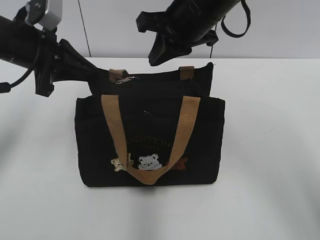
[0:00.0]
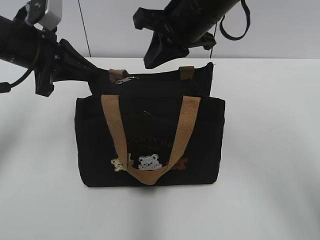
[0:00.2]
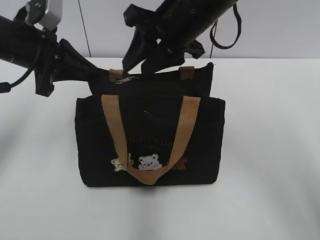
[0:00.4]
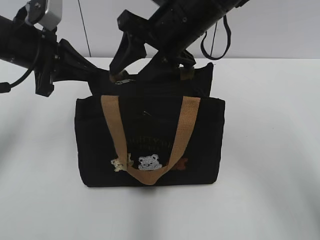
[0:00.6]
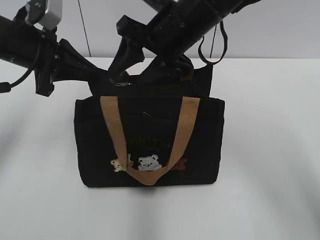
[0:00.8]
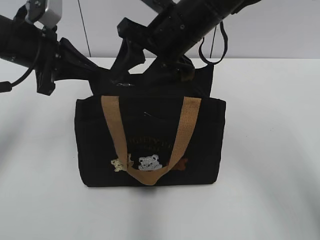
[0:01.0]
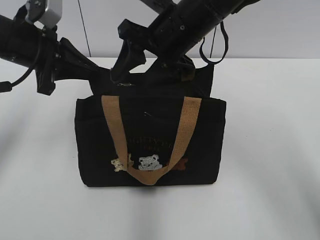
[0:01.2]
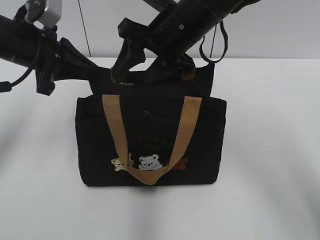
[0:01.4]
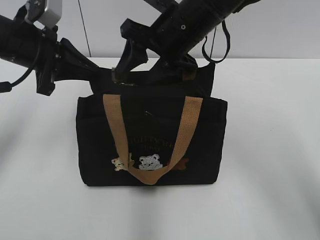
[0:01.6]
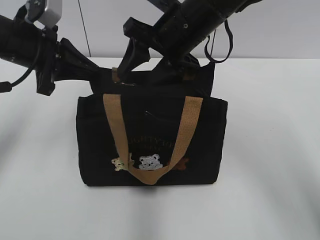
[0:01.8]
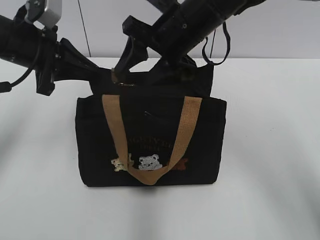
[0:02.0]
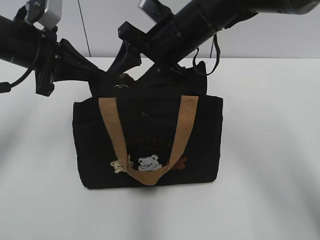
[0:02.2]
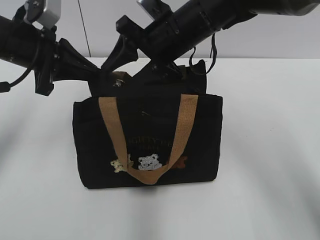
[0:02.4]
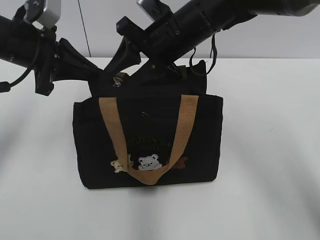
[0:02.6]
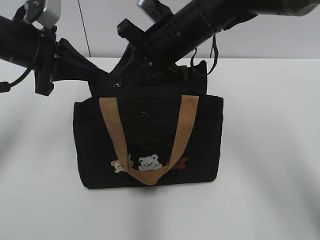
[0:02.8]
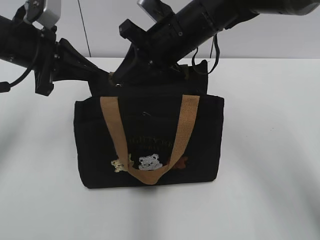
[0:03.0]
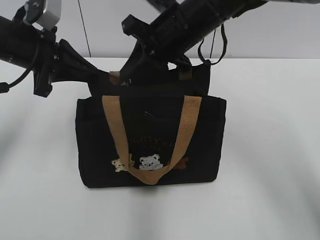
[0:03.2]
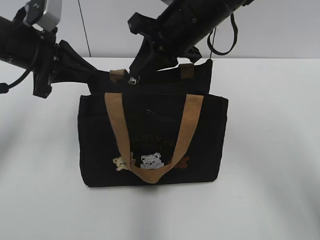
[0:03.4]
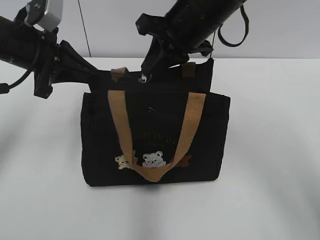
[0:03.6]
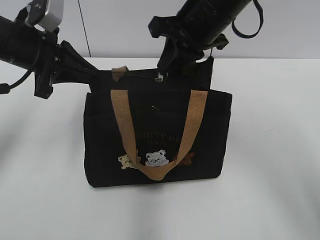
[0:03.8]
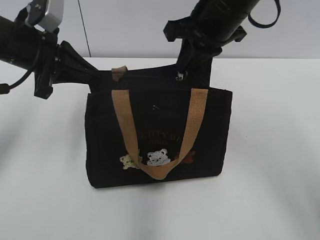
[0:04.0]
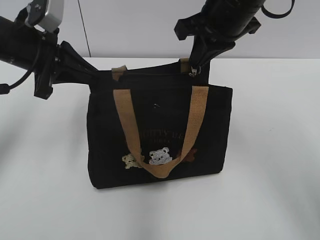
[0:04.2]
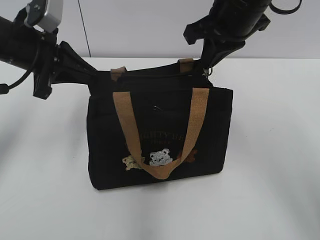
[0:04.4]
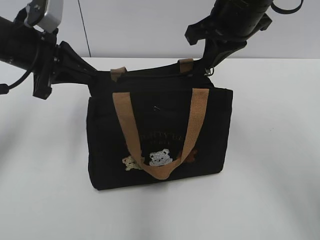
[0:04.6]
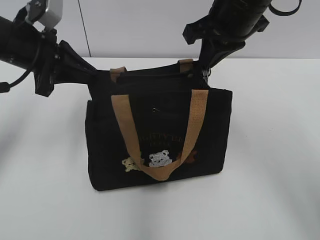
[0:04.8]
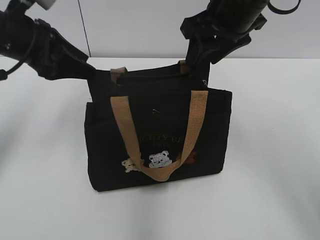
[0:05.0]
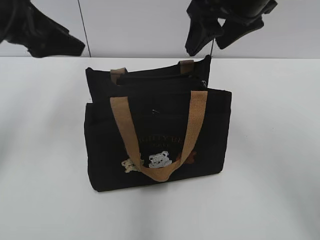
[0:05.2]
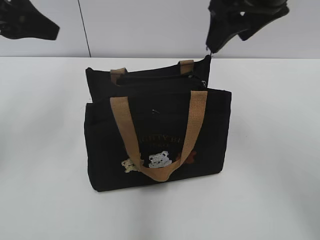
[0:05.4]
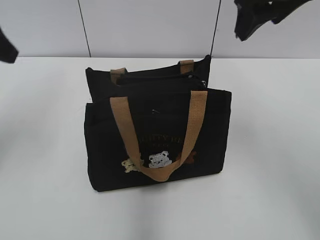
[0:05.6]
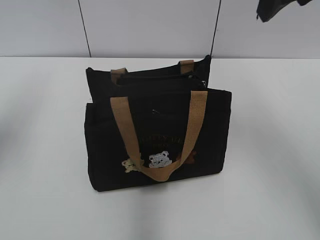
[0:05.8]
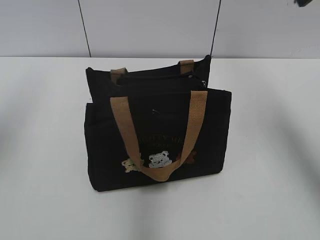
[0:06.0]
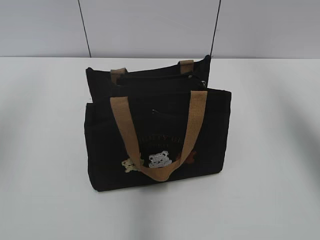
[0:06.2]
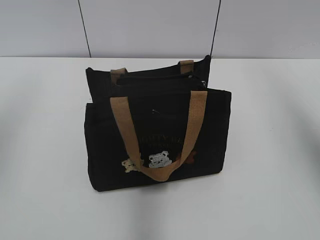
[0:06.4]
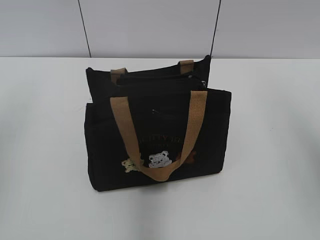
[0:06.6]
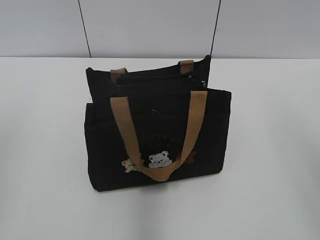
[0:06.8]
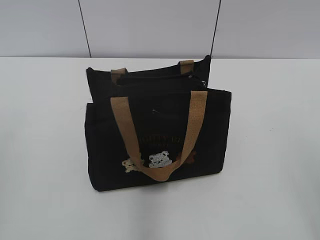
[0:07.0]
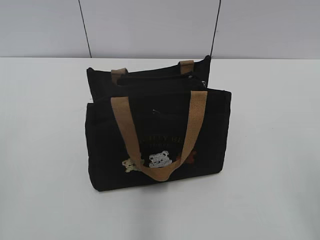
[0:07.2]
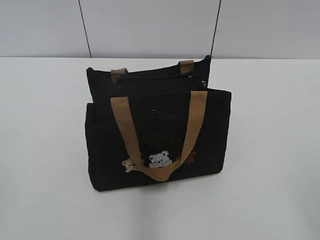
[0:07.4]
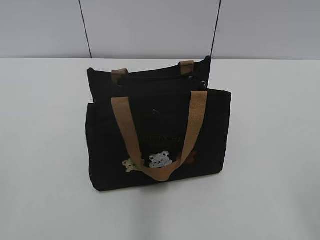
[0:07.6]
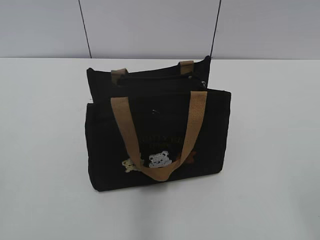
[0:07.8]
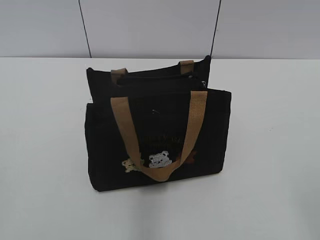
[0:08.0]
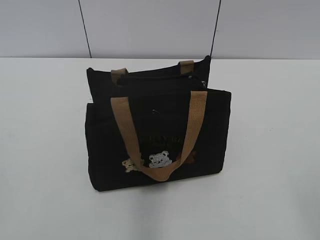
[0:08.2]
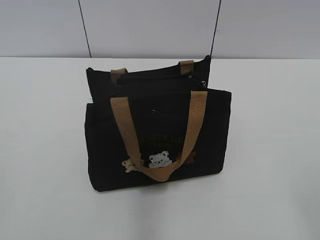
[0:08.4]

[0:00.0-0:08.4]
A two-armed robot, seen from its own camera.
Step, 0:00.0 to 0:04.8: Pull open the zipper with your right hand.
0:00.0 to 0:01.4: The right gripper opens its fingers.
0:01.4 to 0:02.8: The right gripper closes.
0:02.8 to 0:04.2: The right gripper is displaced to the right and upward by roughly 10 cm, and closes.
0:04.2 to 0:05.6: The left gripper goes some 10 cm upward, backward and to the left, and opens; the right gripper shifts approximately 5 cm upward, and opens its fingers.
0:05.6 to 0:07.0: The right gripper travels backward and to the right by about 30 cm. The left gripper shifts some 20 cm backward.

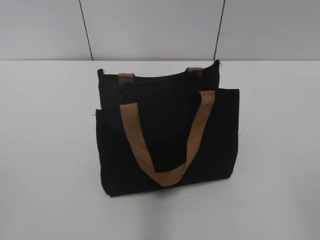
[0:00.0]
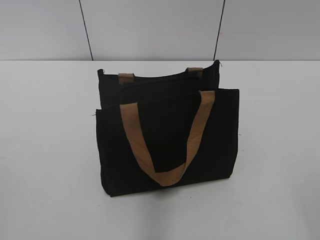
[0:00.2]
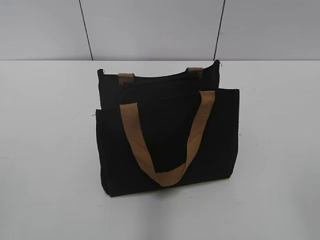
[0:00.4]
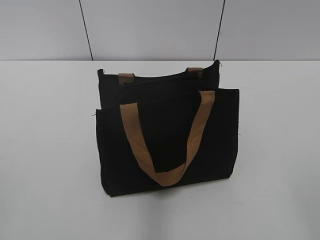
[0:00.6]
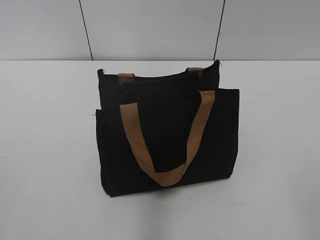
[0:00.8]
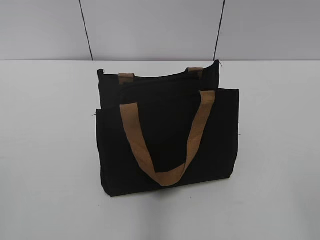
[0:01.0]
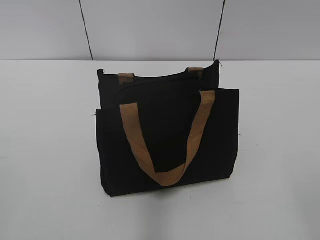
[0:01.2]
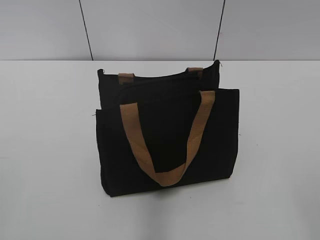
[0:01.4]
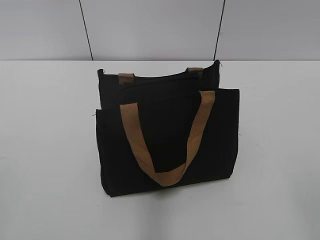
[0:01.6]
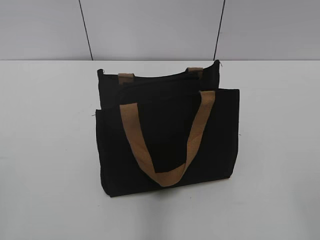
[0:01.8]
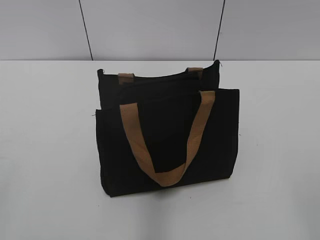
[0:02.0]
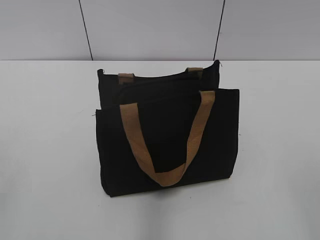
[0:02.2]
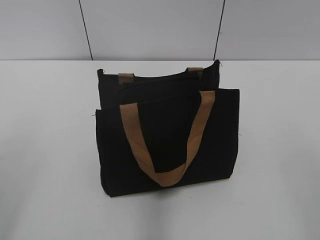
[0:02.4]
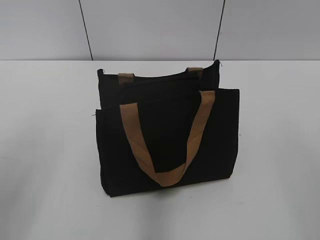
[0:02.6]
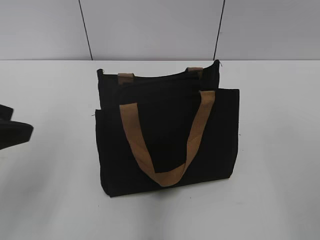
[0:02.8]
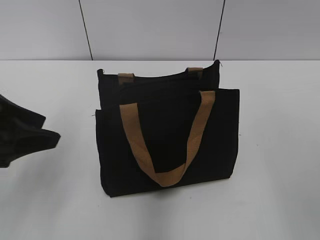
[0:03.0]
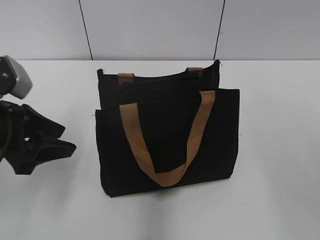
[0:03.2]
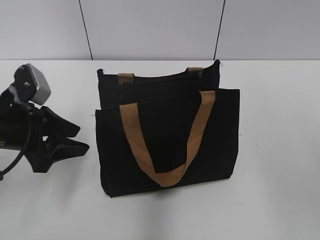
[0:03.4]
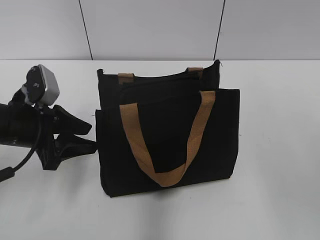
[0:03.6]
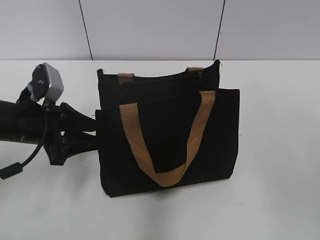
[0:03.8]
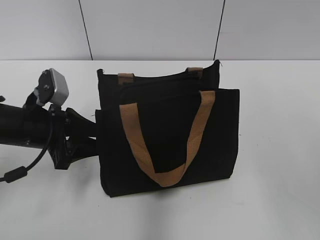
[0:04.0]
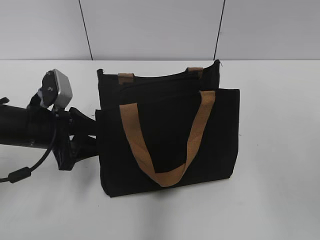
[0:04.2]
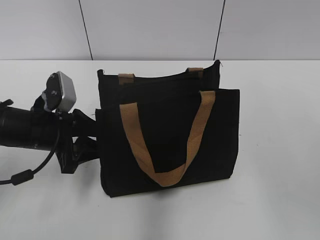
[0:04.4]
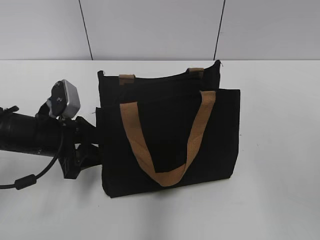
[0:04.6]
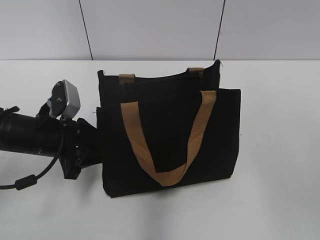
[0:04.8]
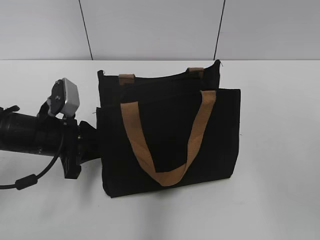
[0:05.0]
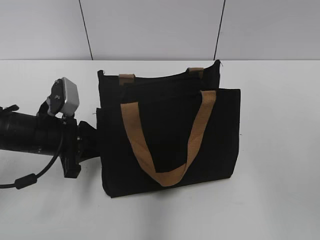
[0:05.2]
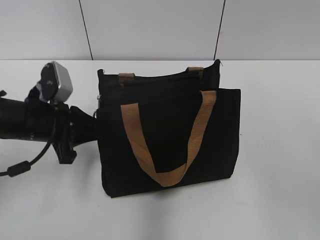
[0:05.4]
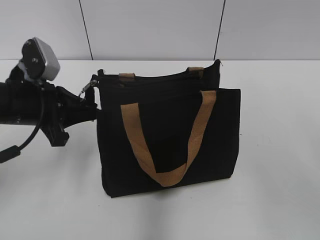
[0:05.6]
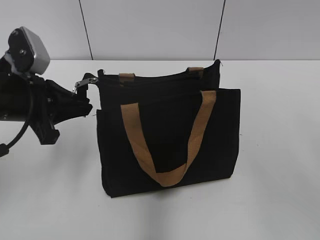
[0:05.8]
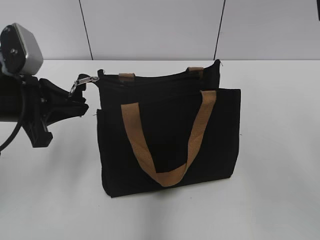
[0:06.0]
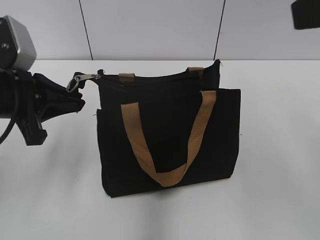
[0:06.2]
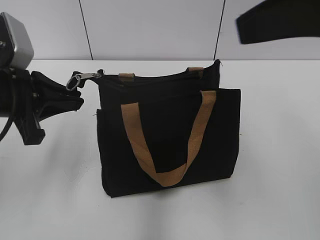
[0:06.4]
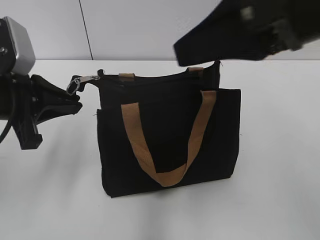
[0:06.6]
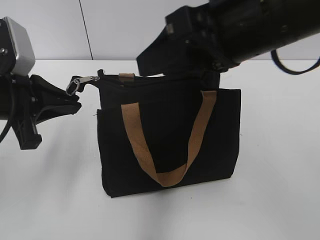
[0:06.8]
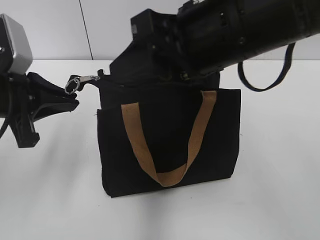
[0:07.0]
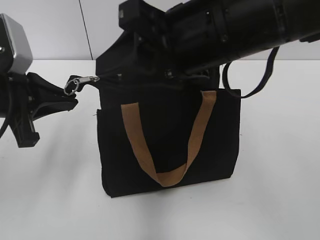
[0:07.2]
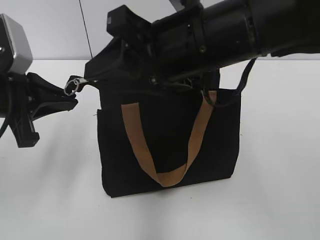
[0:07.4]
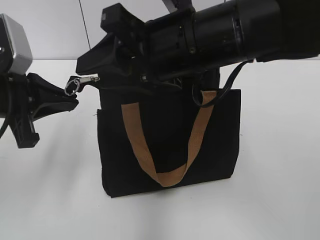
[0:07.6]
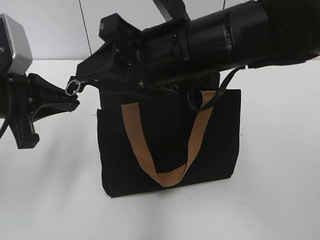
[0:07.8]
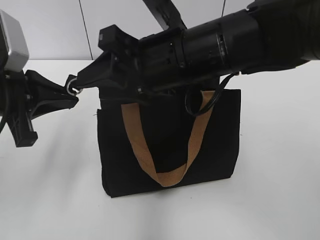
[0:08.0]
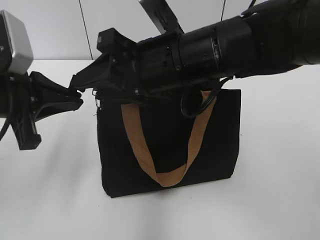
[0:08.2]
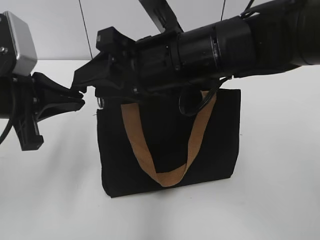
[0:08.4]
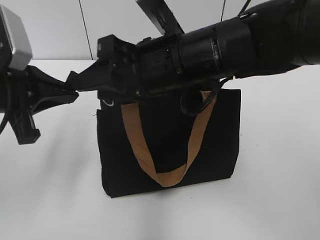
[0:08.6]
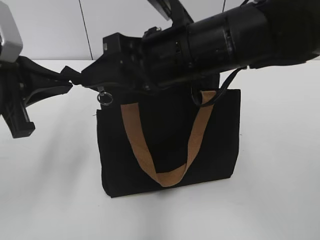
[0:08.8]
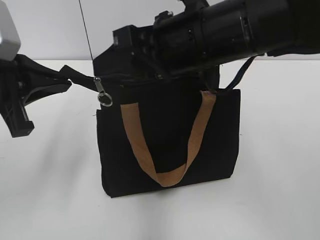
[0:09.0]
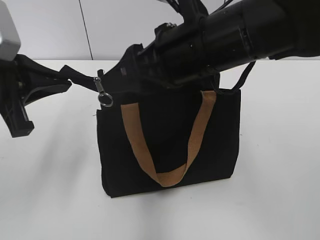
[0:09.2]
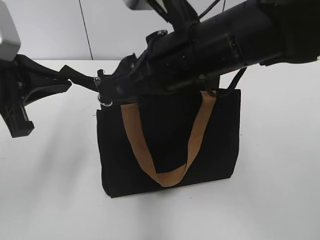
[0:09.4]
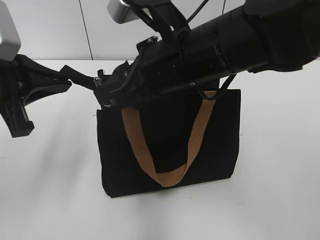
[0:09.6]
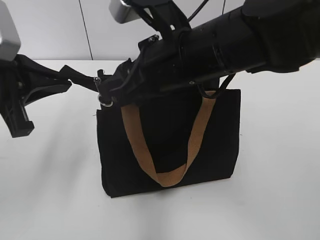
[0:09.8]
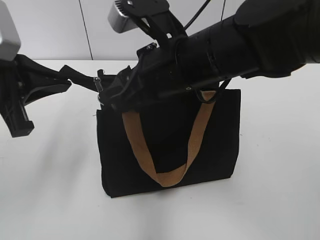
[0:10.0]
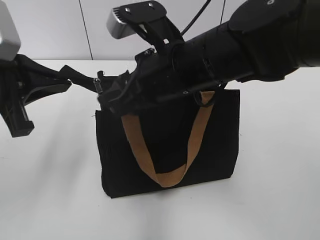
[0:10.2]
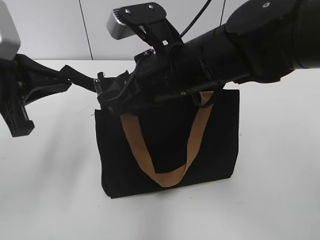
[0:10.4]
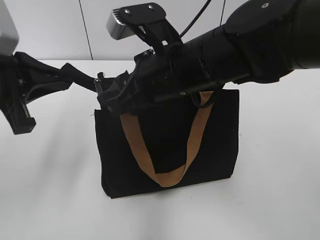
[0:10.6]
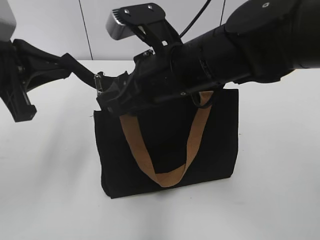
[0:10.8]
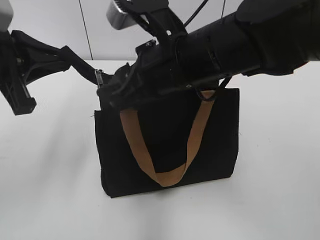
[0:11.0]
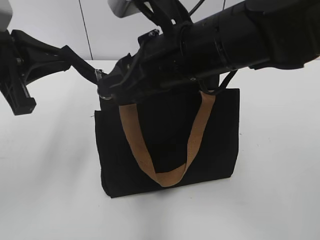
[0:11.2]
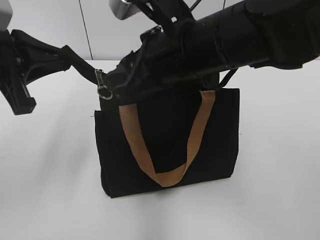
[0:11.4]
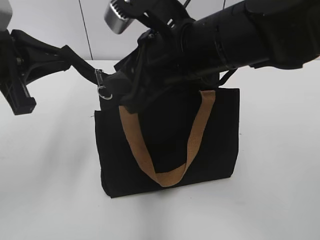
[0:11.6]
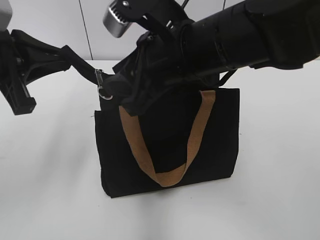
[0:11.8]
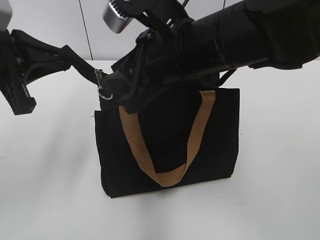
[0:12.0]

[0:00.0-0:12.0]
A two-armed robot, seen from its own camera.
0:01.6 to 0:03.0: The left gripper moves forward, some 20 cm, and opens its fingers.
0:03.0 to 0:04.4: The left gripper travels downward and forward by approximately 15 cm.
0:04.4 to 0:06.0: The left gripper travels upward by about 10 cm, and closes up.
0:06.0 to 0:07.6: The right gripper moves to the left, downward and forward, approximately 25 cm.
0:07.6 to 0:09.0: The grippers make only small movements.

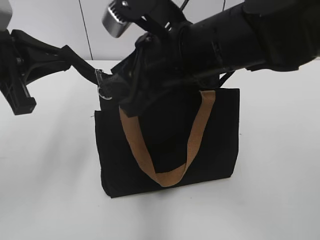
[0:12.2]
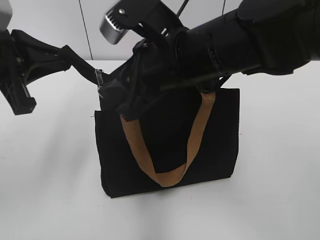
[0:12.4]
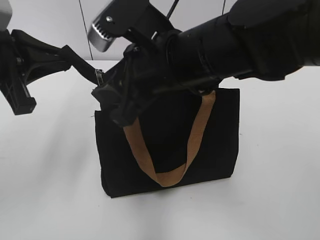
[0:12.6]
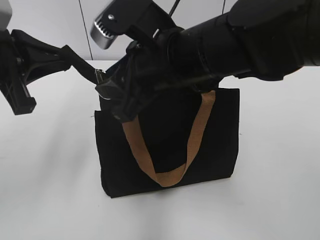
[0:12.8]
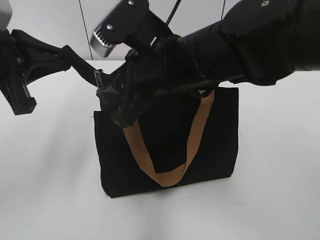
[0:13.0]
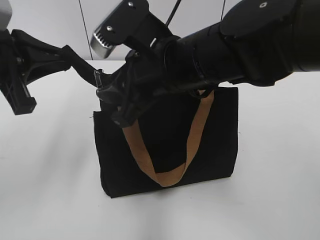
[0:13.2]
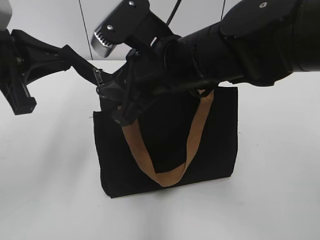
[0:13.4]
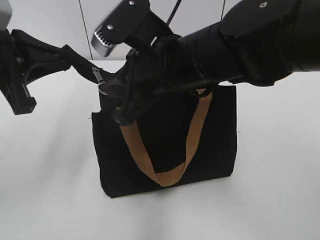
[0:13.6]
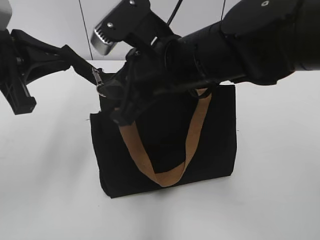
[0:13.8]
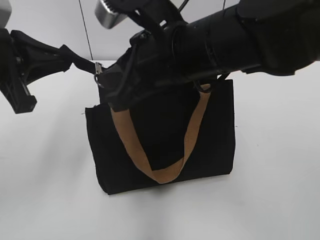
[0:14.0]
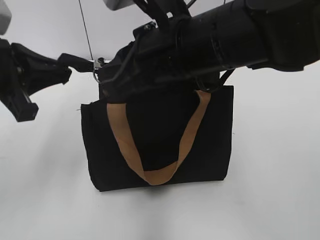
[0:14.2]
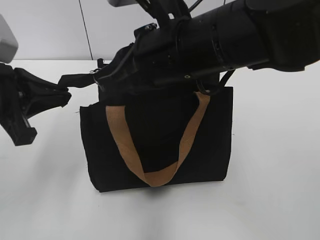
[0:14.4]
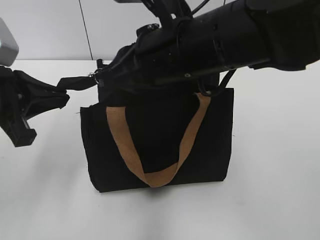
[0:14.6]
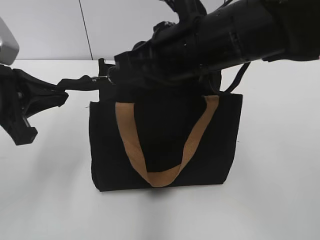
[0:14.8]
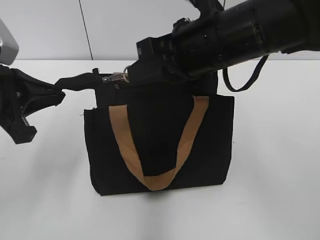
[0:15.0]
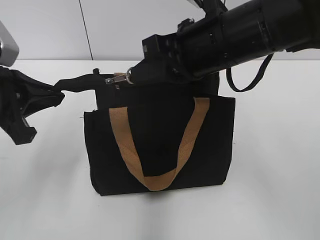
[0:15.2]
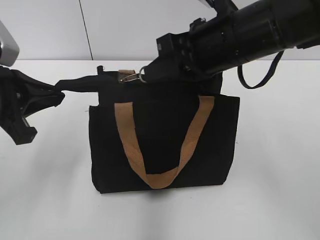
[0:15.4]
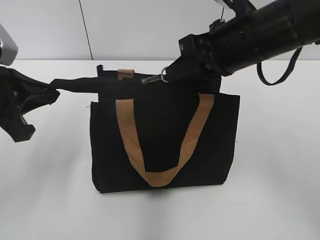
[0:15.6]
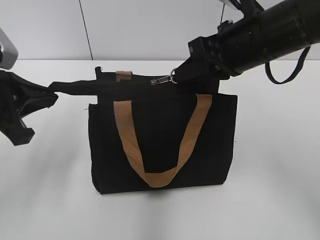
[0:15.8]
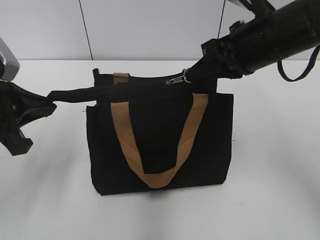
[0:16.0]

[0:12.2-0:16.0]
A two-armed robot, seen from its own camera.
0:12.2 to 0:13.4: The grippers move only a little.
0:14.8 to 0:16.0: The right gripper shifts approximately 10 cm to the right.
